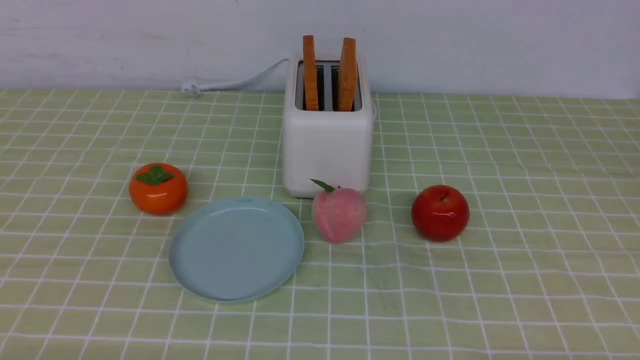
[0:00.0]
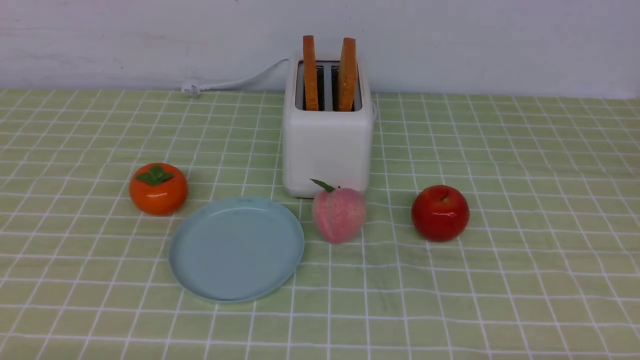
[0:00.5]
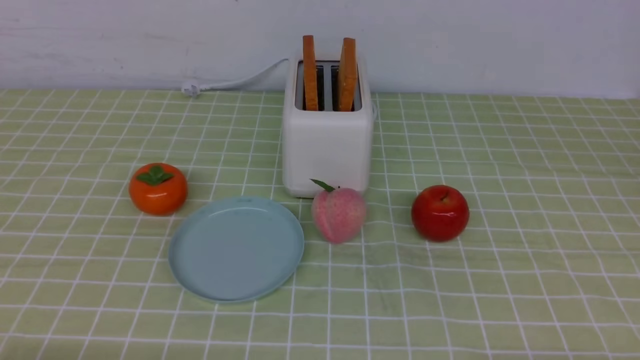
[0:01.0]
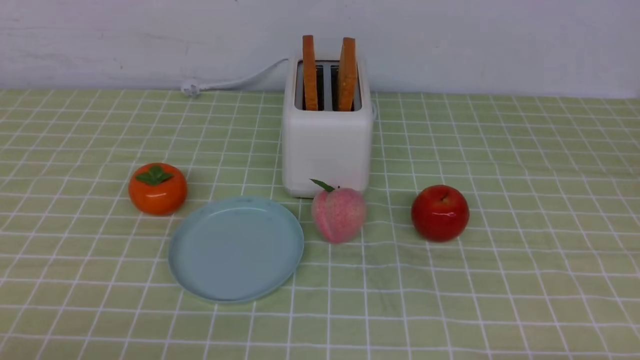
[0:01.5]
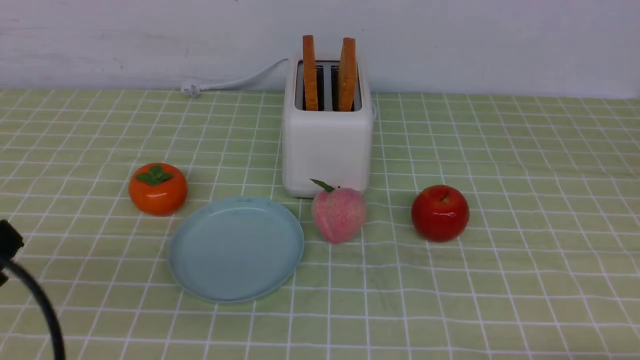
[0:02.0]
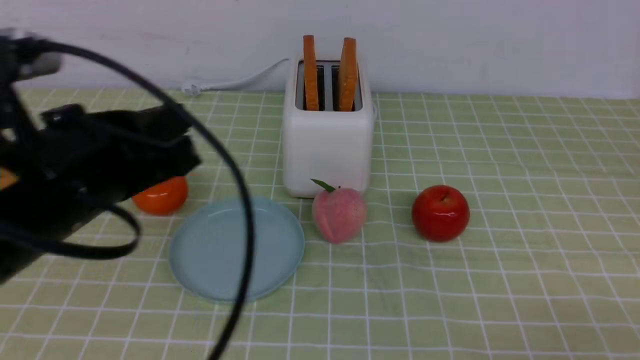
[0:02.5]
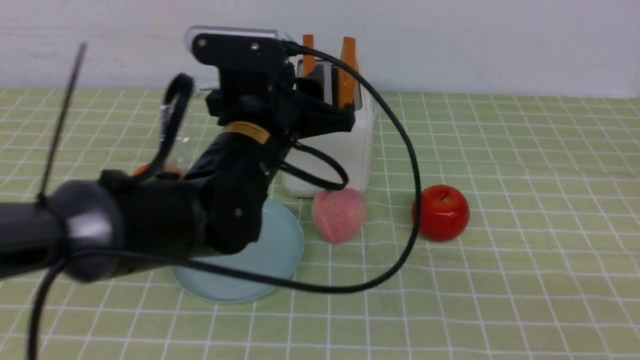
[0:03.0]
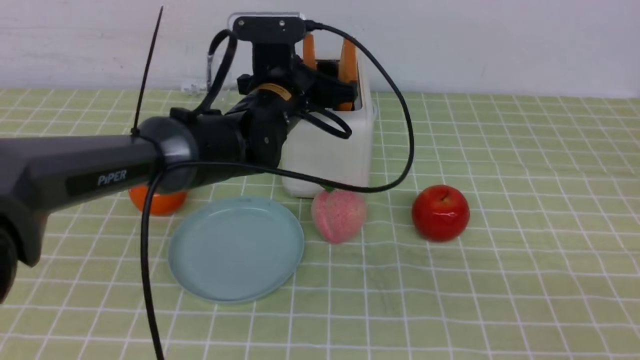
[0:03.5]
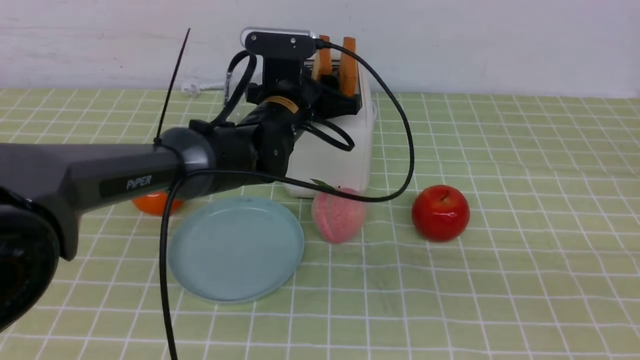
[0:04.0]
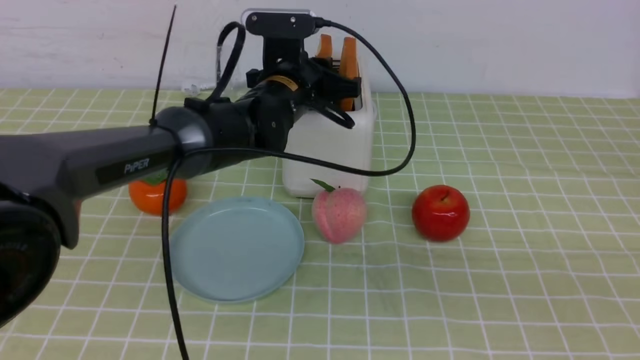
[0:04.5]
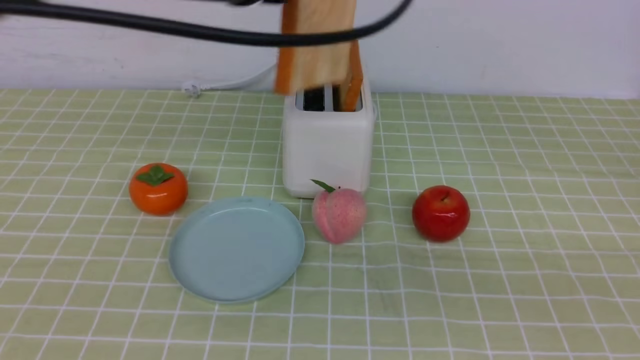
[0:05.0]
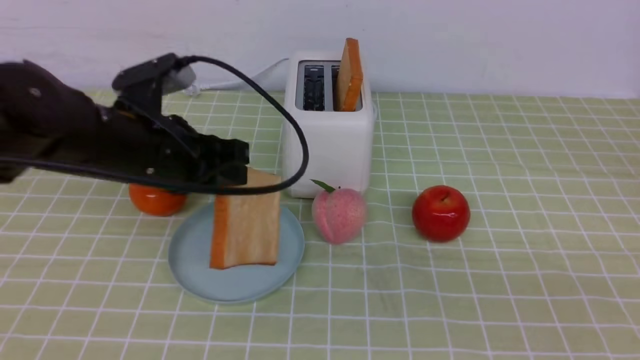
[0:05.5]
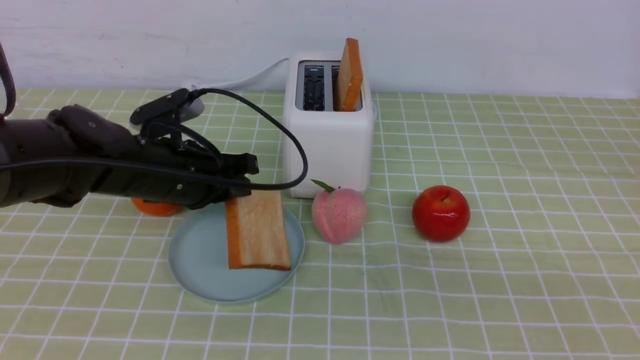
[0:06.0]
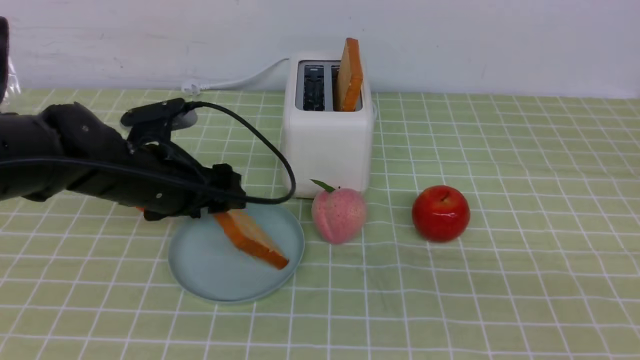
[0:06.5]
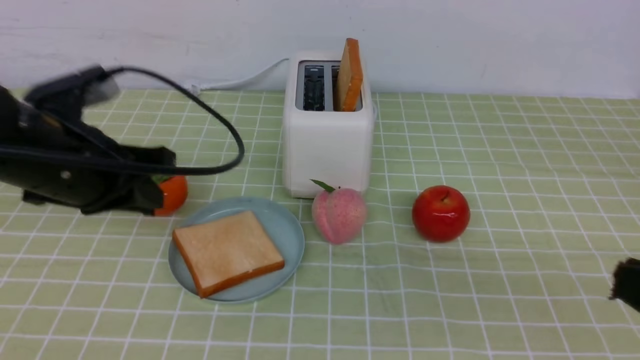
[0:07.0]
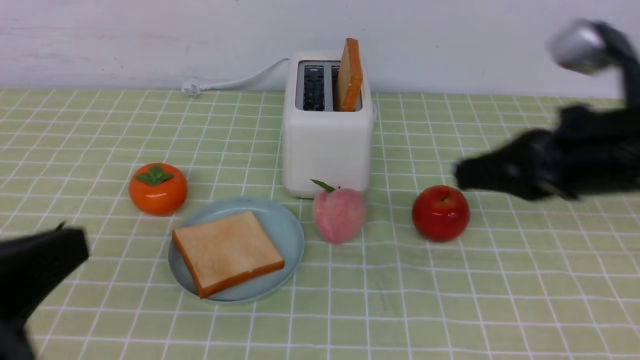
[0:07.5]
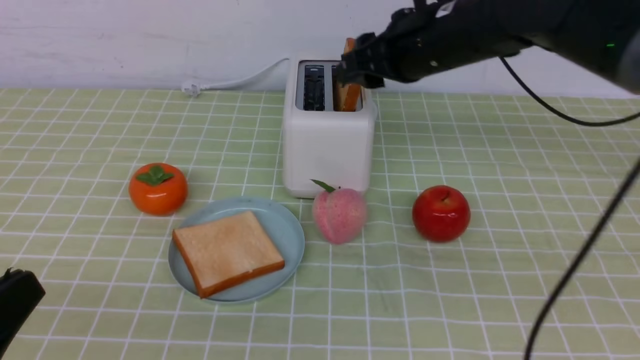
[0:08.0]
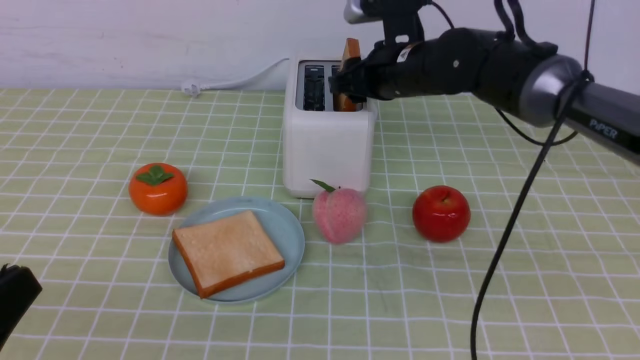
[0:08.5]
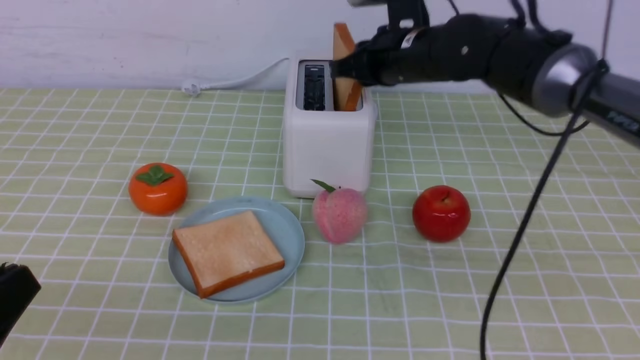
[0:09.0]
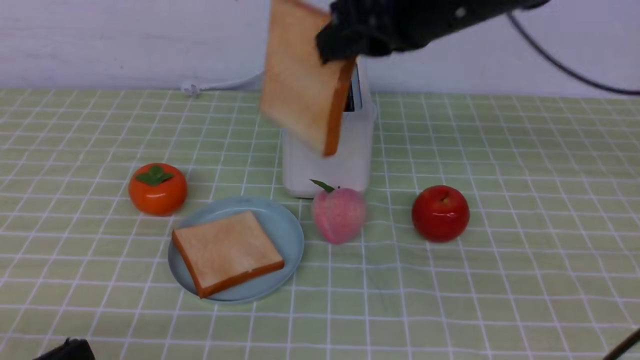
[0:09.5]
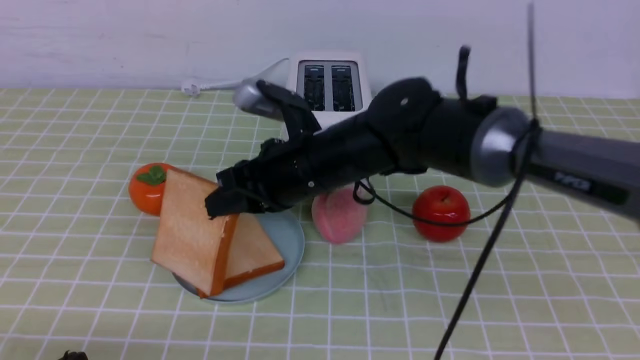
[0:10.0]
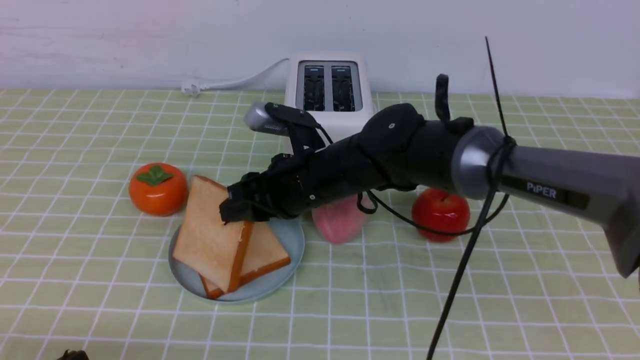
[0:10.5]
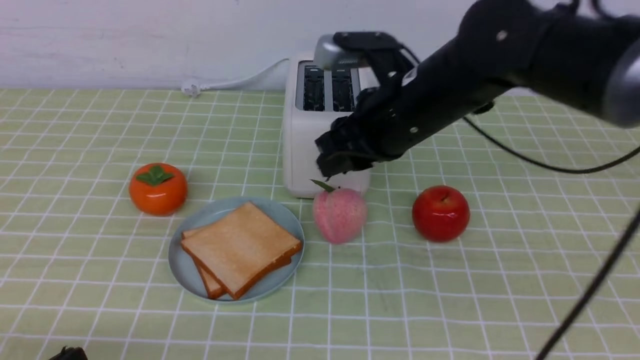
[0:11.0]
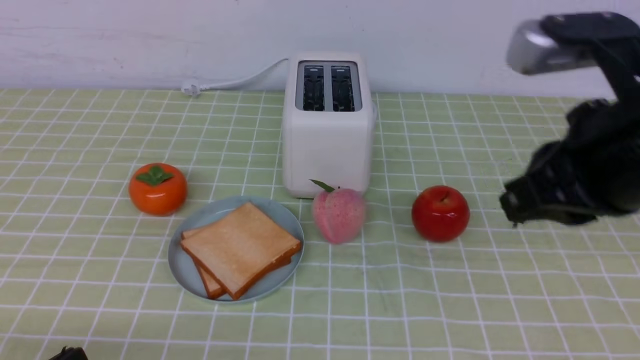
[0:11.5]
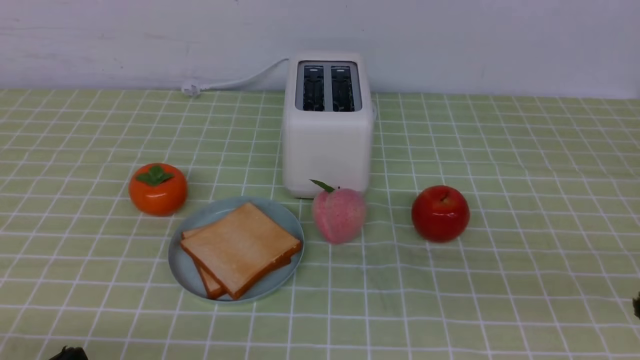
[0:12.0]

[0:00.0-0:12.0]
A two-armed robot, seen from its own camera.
Task of the whole recording: take toasted bread from bread machine on green coffee tablecloth place on plate.
Step, 0:00.0 to 0:04.5: use the left arm to take out a slice of bread.
Step, 0:05.0 to 0:06.5: use the left arm to put a slice of bread into the empty plate.
Step, 0:07.0 to 0:09.0: use the right arm to take out a slice of bread.
Step, 0:09.5 to 0:11.0: use the right arm to put a slice of bread into the plate.
0:00.0 to 0:02.0: The left gripper is displaced upward and forward by about 15 cm, and closes its fingers.
0:02.0 to 0:04.0: The right gripper goes some 15 cm upward, and closes; the left gripper is displaced forward and to the right by some 40 cm, and opens.
0:04.0 to 0:06.0: The left gripper shifts about 15 cm to the left and backward, and reaches some 15 cm upward, then returns.
0:06.0 to 0:08.0: The right gripper moves forward and to the left, roughly 40 cm, and opens up. The left gripper is displaced backward by roughly 30 cm, and closes.
0:08.0 to 0:10.0: The left gripper heads downward, covering roughly 10 cm, while the right gripper travels to the left, downward and backward by about 15 cm, and closes up.
0:10.0 to 0:12.0: The right gripper travels backward, to the right and upward by approximately 35 cm, and opens and closes again.

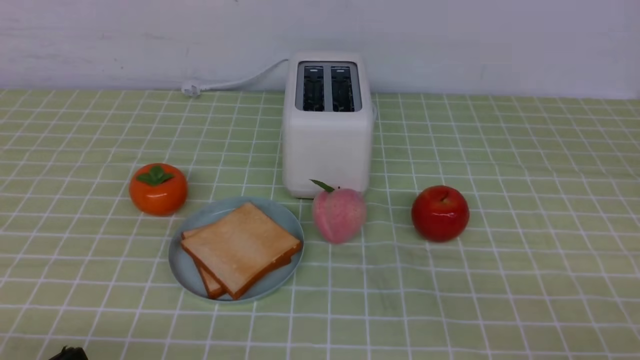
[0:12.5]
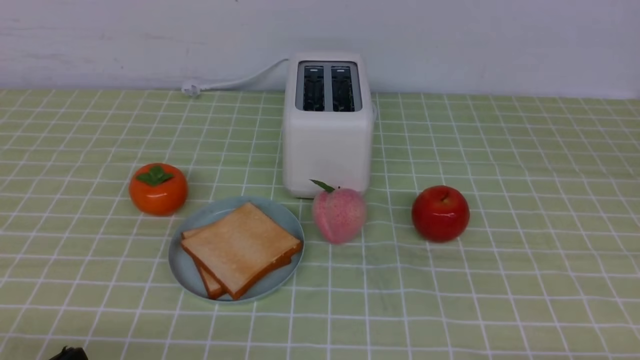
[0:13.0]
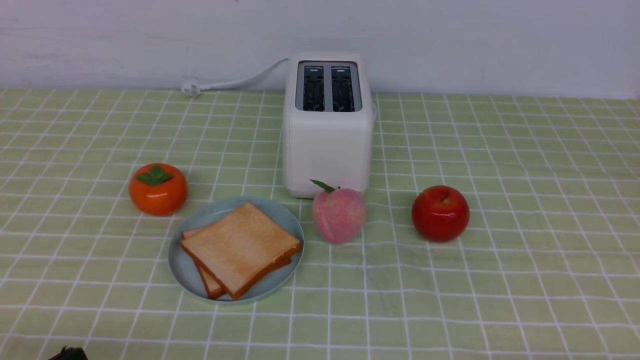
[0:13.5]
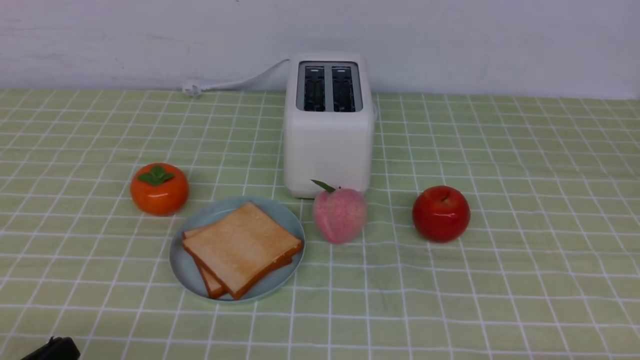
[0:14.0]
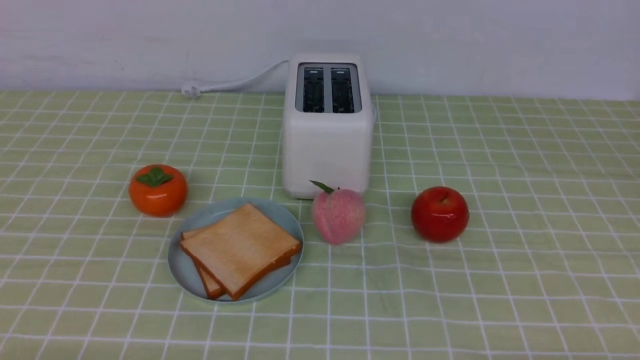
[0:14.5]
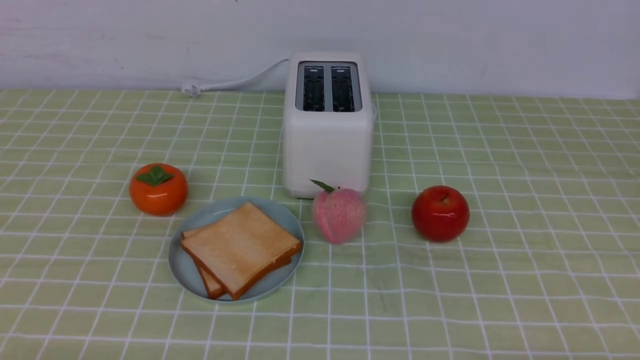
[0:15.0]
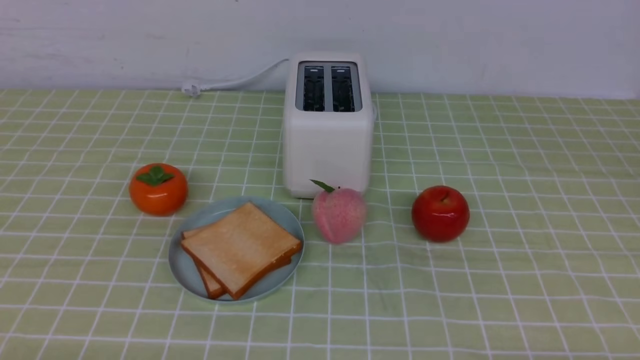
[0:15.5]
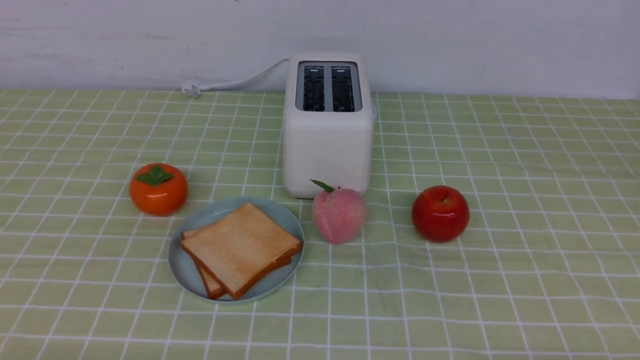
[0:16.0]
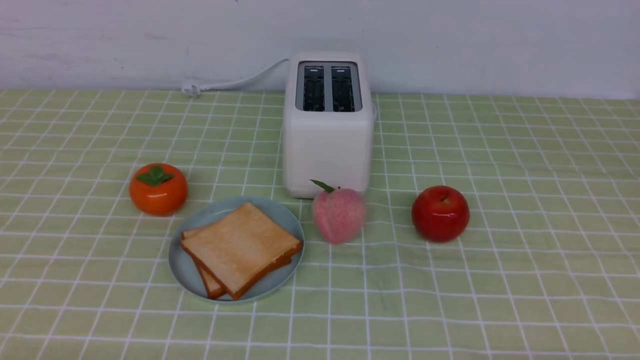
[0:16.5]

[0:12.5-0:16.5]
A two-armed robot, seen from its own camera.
Task of the whole recording: take toasted bread from bread machine on green coffee tablecloth place on plate.
0:14.5 to 0:16.5: The two grippers keep their place.
